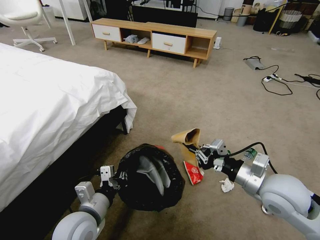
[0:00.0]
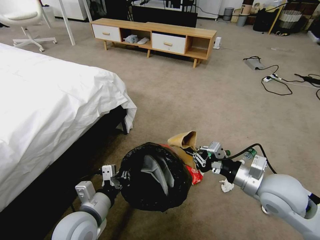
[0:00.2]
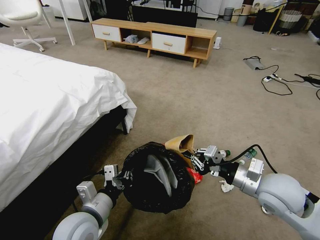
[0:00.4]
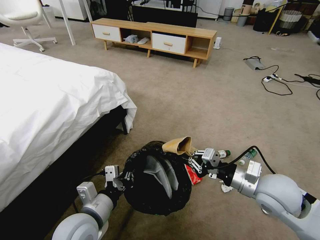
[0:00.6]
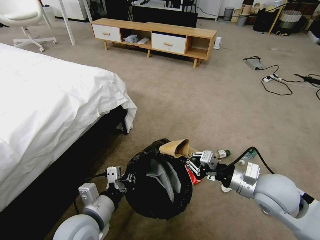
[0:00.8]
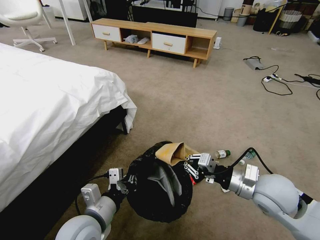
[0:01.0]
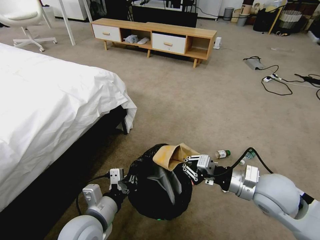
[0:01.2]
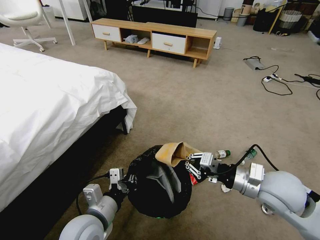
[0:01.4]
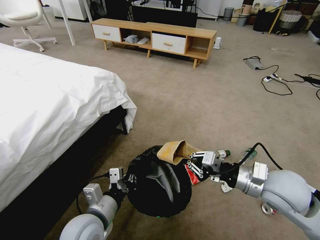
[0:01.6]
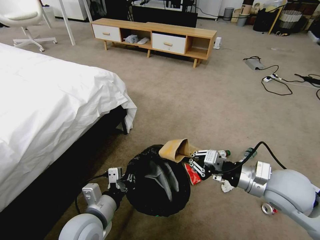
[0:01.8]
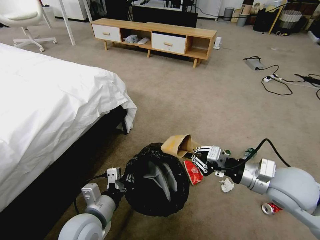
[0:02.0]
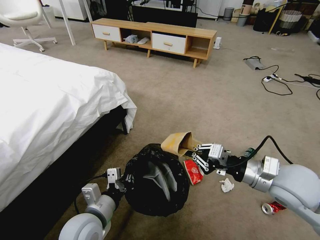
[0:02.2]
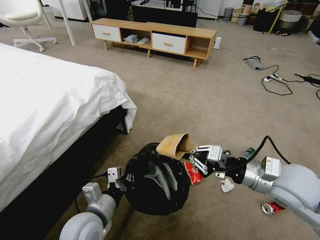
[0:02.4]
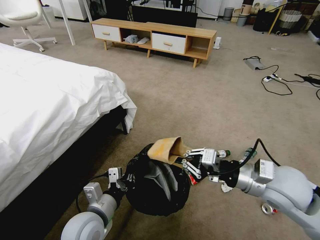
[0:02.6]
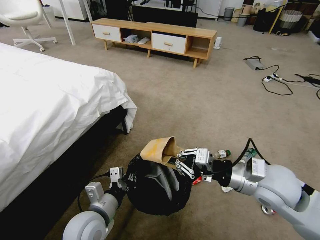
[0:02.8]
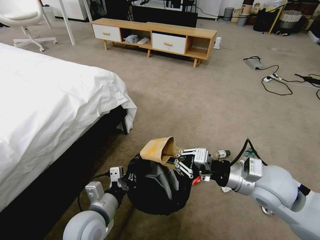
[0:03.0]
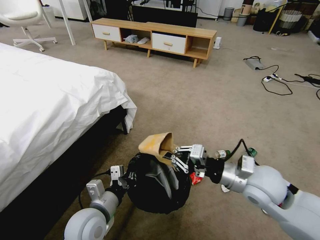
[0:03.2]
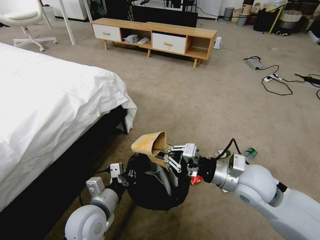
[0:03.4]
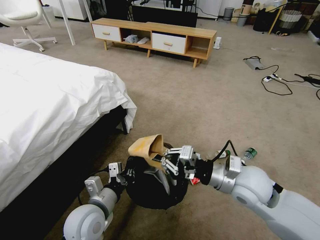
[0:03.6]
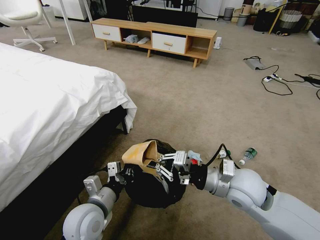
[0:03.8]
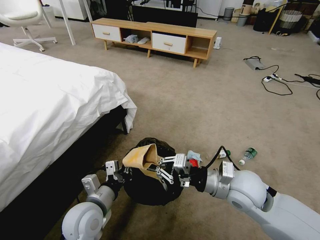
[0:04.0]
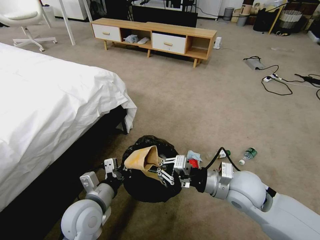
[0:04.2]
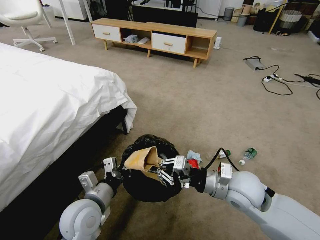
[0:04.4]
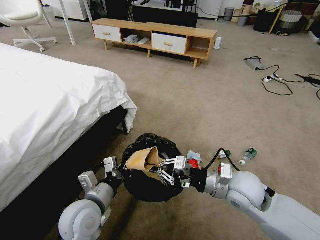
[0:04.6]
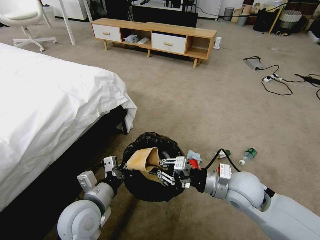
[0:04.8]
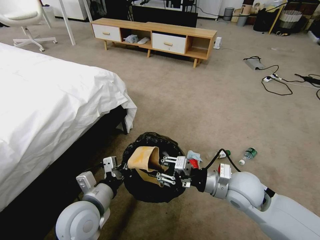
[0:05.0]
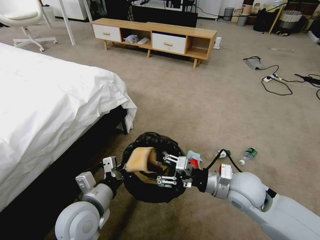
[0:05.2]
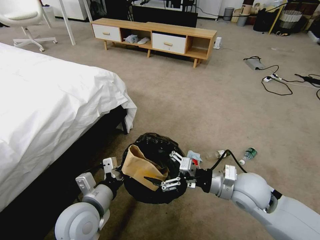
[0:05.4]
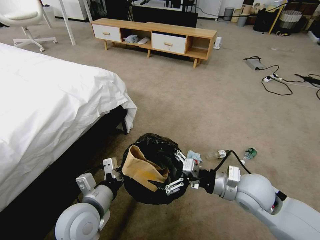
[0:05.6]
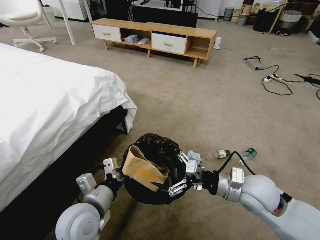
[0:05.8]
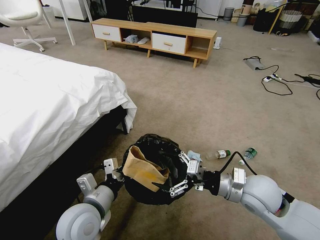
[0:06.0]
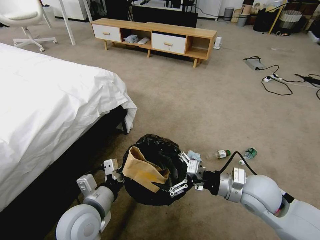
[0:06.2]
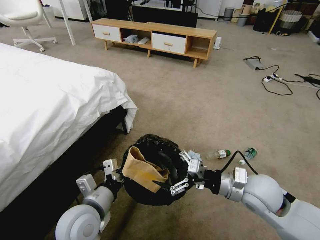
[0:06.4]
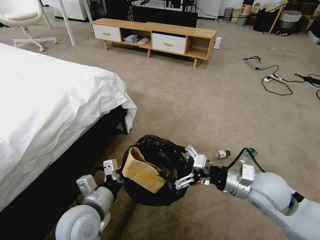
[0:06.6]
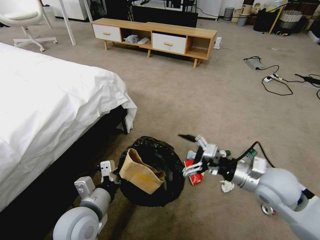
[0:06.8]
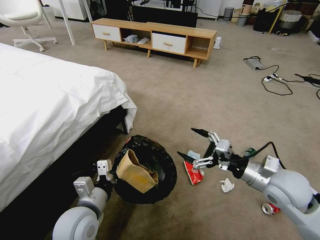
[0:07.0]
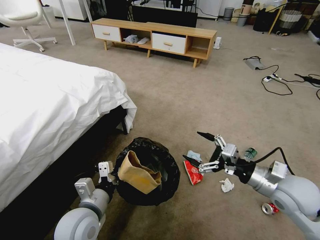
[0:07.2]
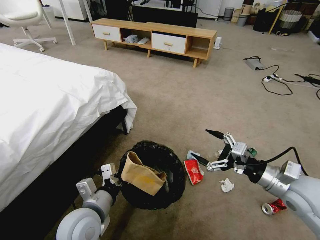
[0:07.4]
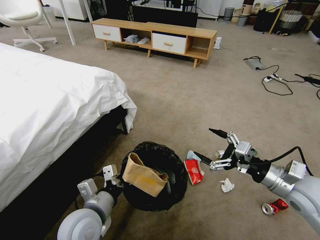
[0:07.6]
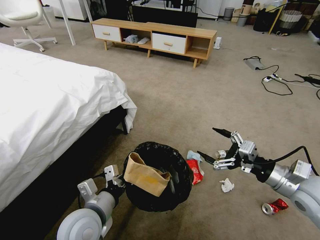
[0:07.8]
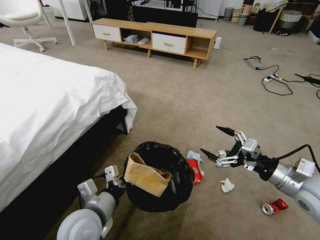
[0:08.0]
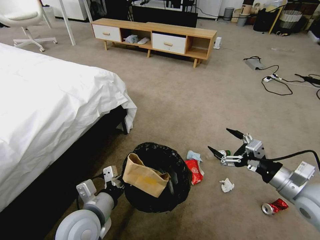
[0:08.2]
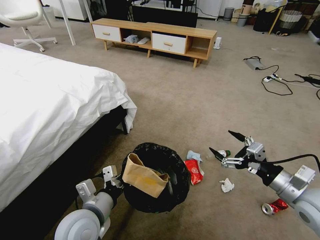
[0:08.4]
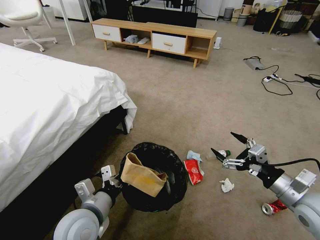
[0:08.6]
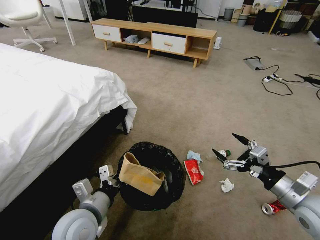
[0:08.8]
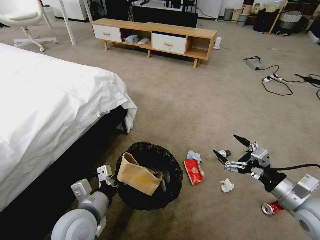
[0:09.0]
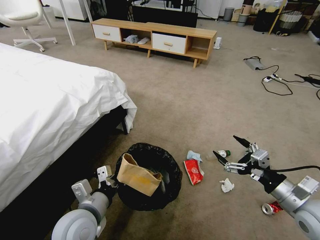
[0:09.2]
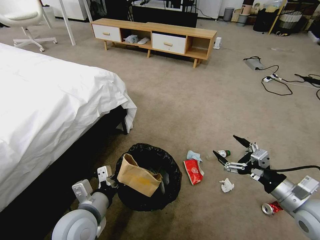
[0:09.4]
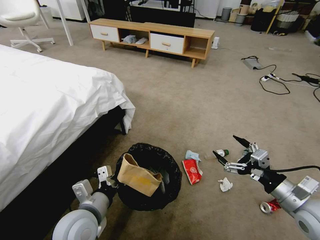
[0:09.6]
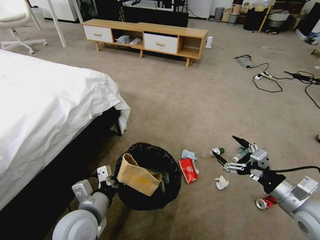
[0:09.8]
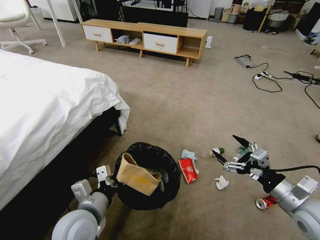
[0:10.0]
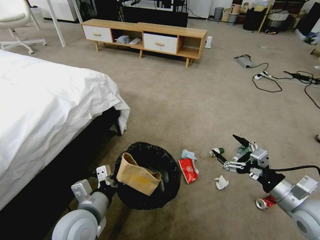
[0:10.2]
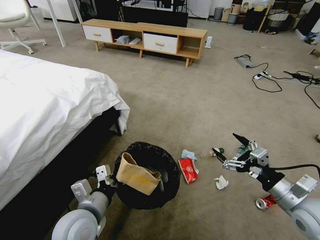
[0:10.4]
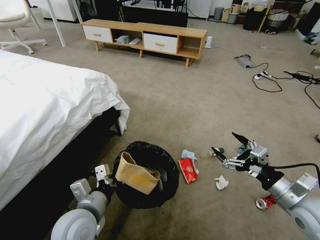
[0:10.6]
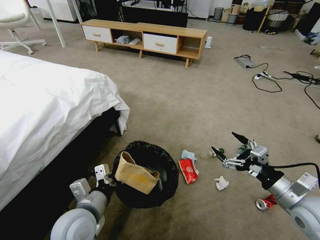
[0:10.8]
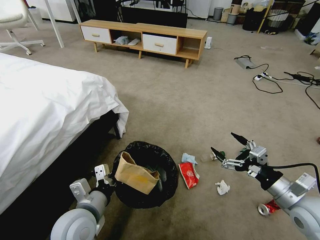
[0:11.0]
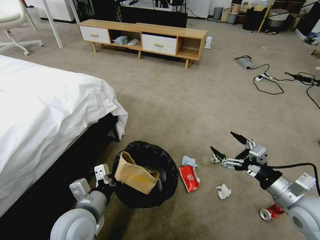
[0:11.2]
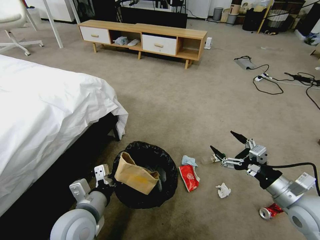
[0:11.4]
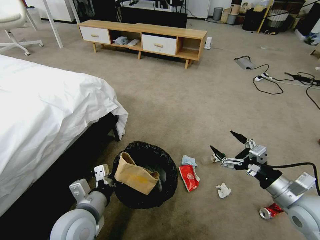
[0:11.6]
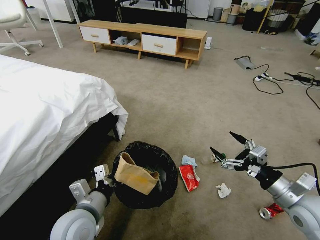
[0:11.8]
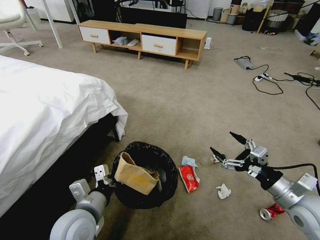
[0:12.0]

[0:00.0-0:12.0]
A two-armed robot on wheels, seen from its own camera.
Task of the whole recording: Pick up the trash bin and place the garbage on the floor into it.
0:01.6 to 0:03.0: The grippers stay close to where they were, moving slightly.
0:03.0 to 0:04.4: The right gripper changes place by approximately 5 cm.
0:04.4 to 0:06.0: The right gripper opens up.
0:06.0 to 0:07.6: The right gripper moves to the right, roughly 10 cm.
0:07.6 to 0:09.0: The right gripper ends up approximately 5 cm from where it was.
0:10.4 to 0:12.0: The grippers make only small movements.

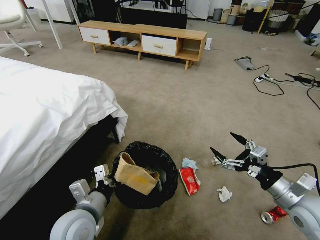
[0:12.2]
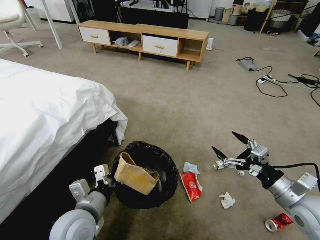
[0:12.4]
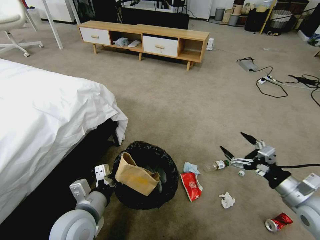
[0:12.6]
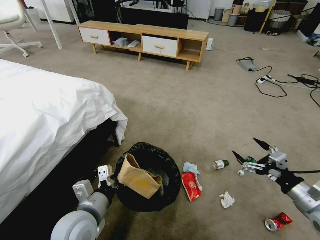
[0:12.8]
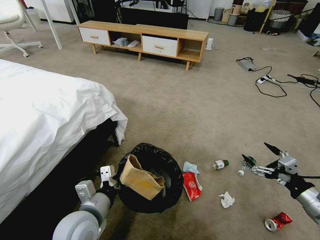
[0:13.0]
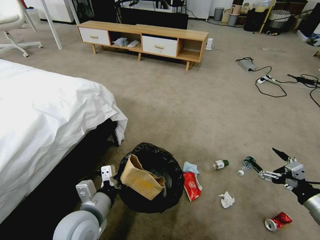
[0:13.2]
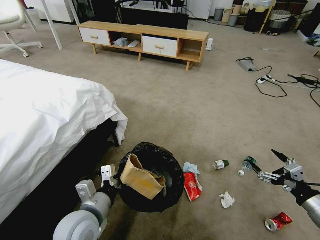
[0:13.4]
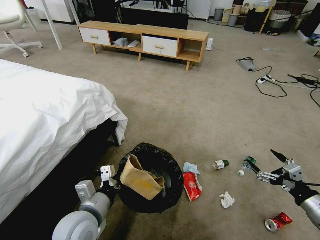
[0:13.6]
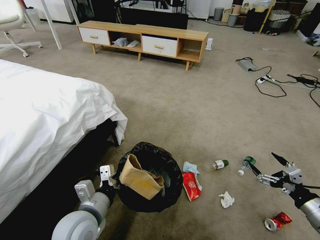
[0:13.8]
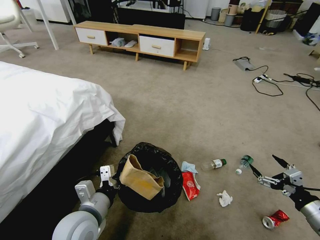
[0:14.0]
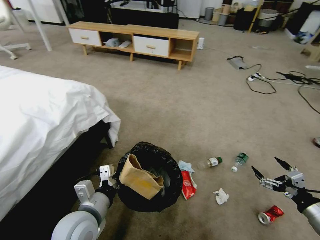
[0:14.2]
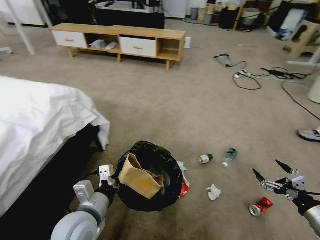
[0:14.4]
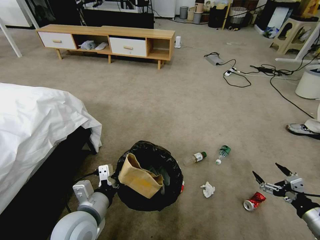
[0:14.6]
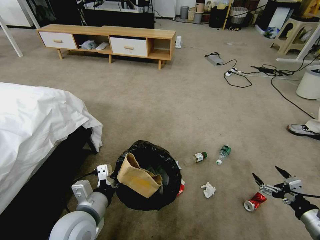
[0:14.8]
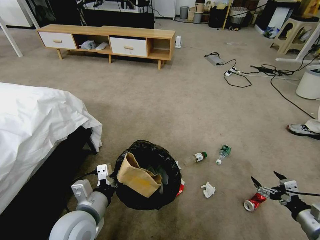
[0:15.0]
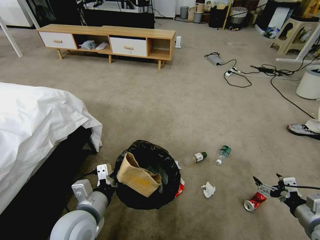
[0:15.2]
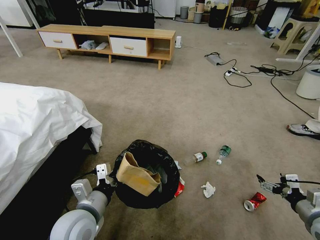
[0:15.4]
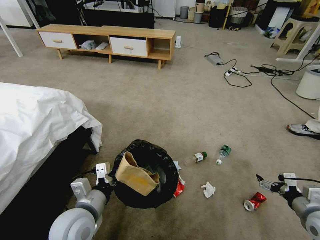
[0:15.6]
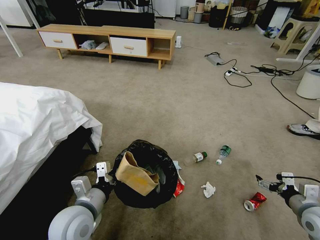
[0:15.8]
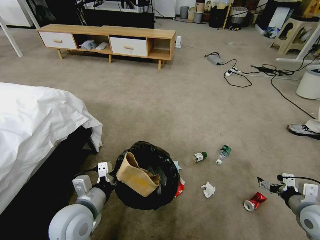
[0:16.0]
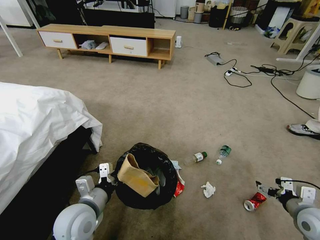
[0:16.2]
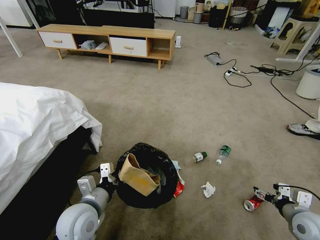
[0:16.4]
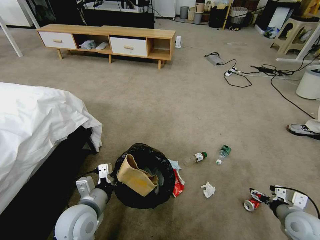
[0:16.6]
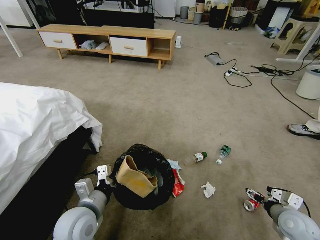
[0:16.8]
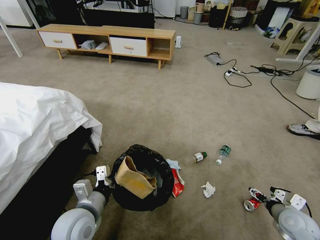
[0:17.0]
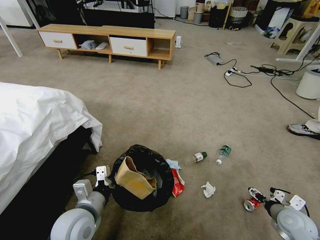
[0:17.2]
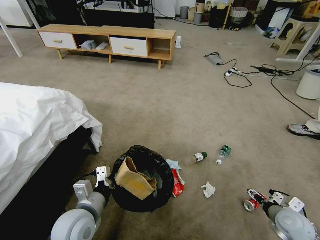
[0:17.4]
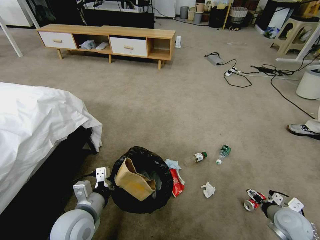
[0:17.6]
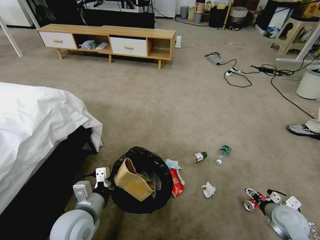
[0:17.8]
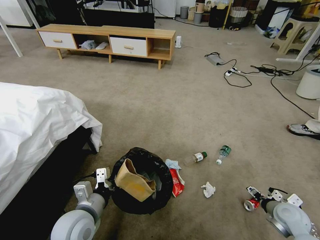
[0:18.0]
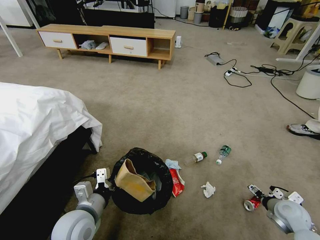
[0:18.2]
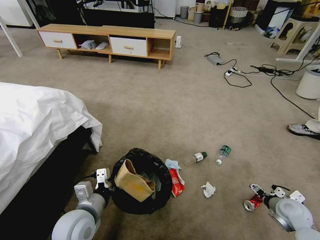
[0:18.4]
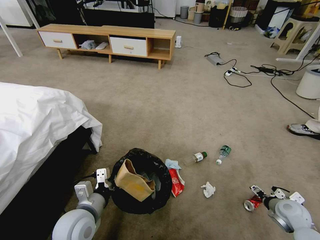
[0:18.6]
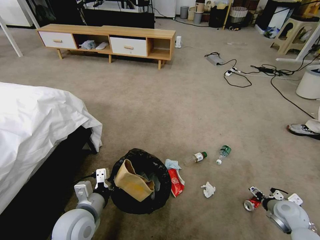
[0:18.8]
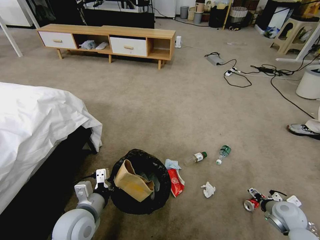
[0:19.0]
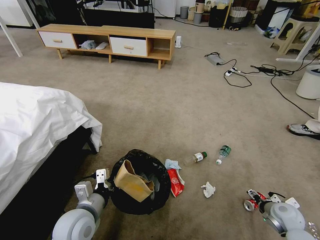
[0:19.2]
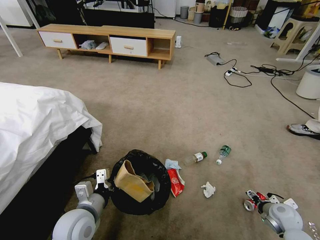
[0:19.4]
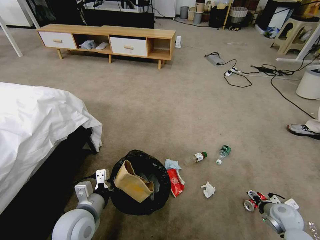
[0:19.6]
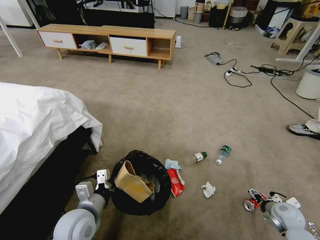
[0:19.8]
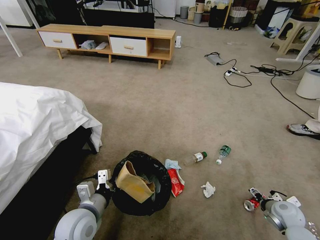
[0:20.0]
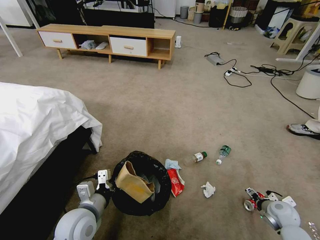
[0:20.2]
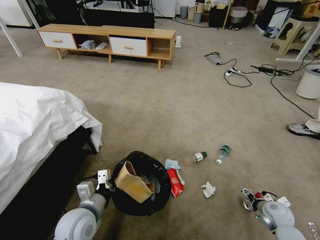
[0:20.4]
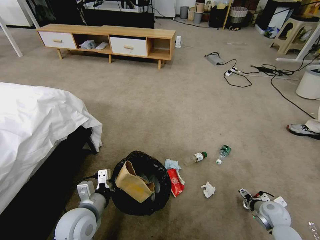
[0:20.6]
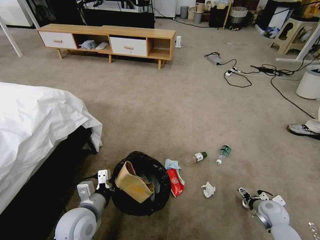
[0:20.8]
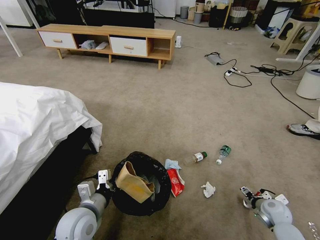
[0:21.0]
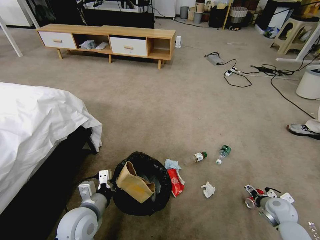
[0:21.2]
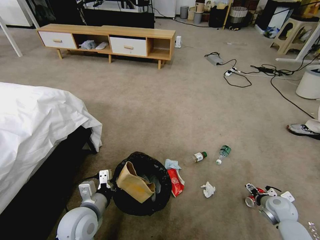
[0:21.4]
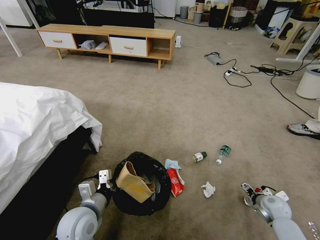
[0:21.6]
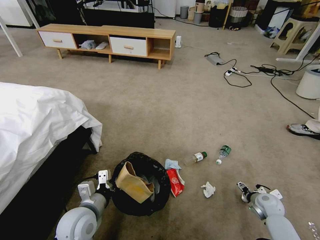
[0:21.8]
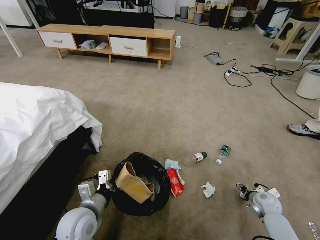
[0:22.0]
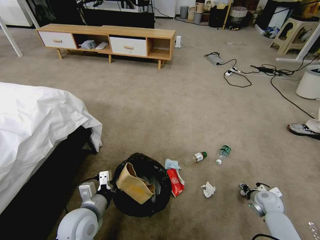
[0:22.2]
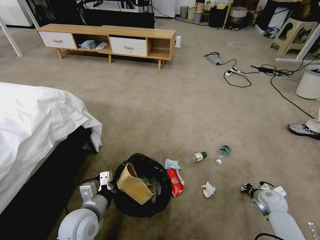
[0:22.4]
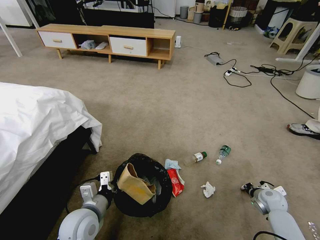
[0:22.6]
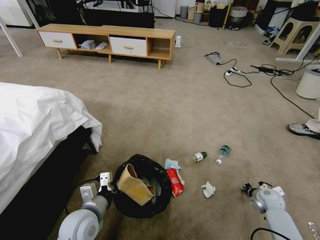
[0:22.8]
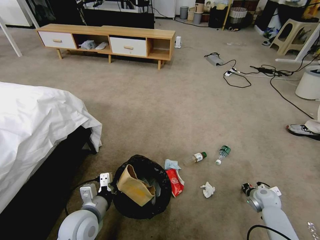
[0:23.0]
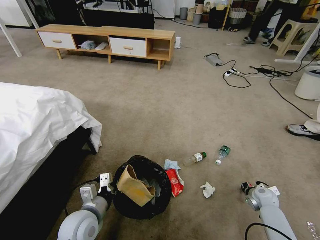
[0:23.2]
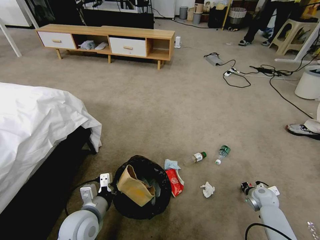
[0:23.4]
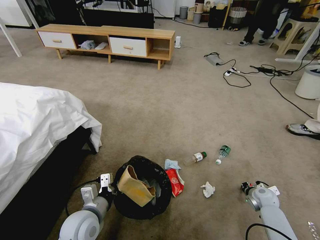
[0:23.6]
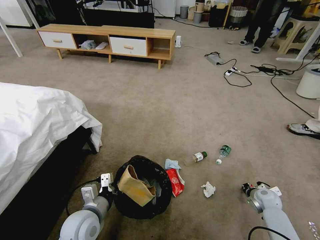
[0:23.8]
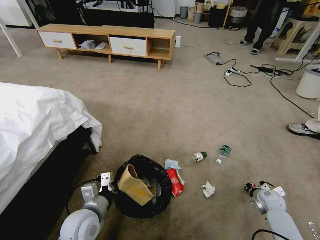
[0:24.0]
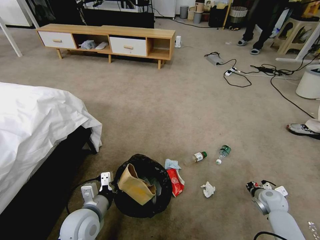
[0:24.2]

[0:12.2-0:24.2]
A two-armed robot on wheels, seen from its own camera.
Task of the whole recording: Pick up the trash bin and place the garbage on the floor into it.
0:12.2 to 0:13.8: The right gripper travels to the right and downward by approximately 10 cm.
0:15.2 to 0:16.6: The right gripper changes place by some 5 cm.
0:16.6 to 0:18.2: The right gripper moves about 5 cm.
0:18.2 to 0:19.8: The grippers stay close to where they were, moving slightly.
0:19.8 to 0:21.2: There are only small adjustments of the grippers.
0:21.2 to 0:22.6: The right gripper closes.
0:22.6 to 0:24.2: The grippers move only a little.
